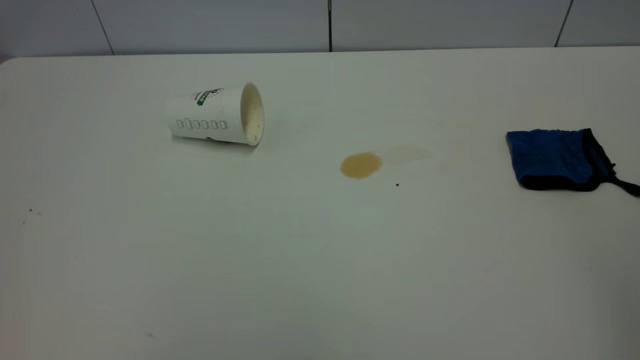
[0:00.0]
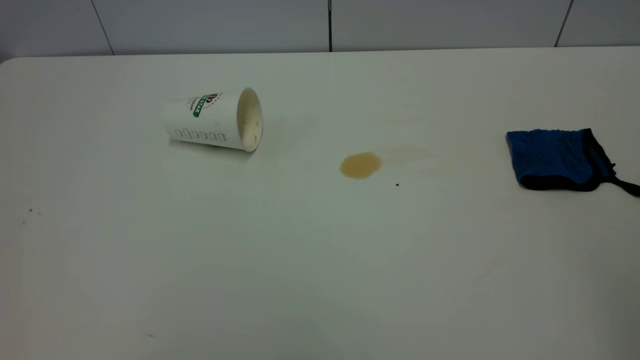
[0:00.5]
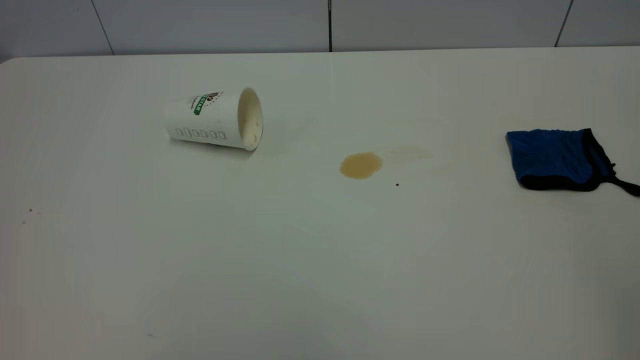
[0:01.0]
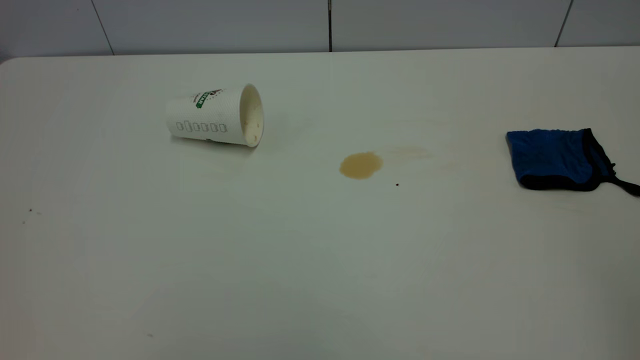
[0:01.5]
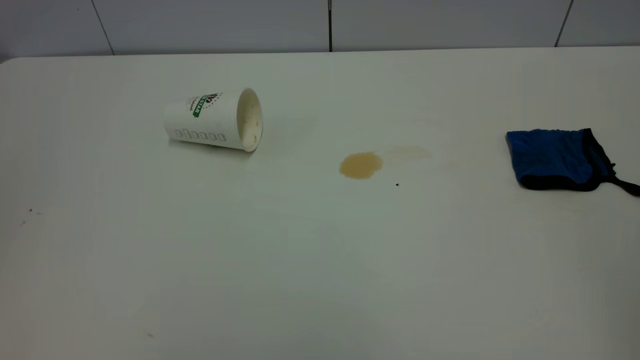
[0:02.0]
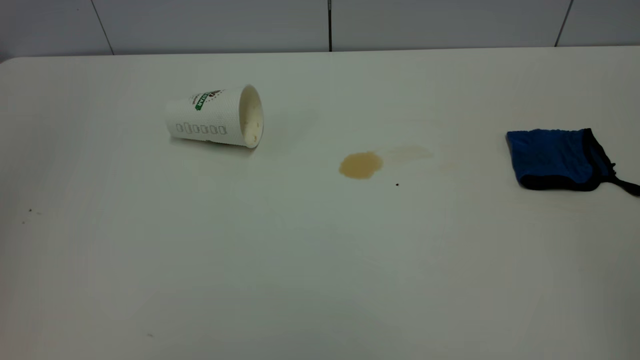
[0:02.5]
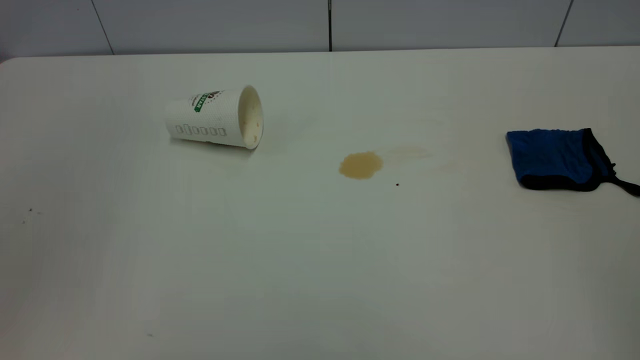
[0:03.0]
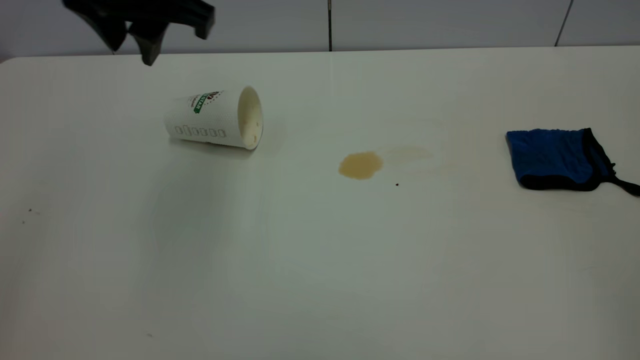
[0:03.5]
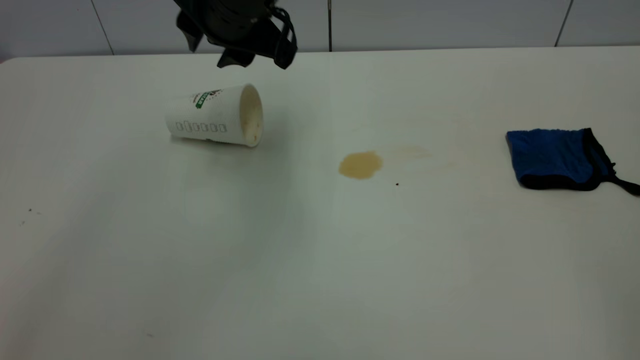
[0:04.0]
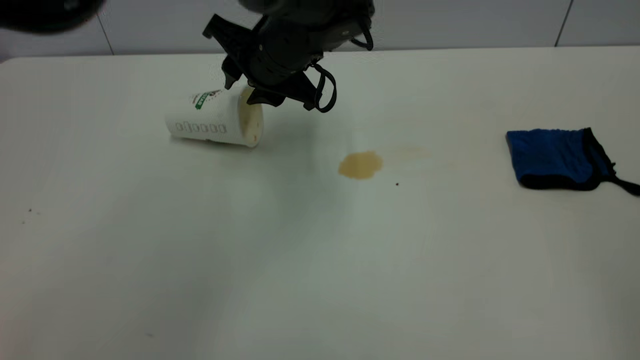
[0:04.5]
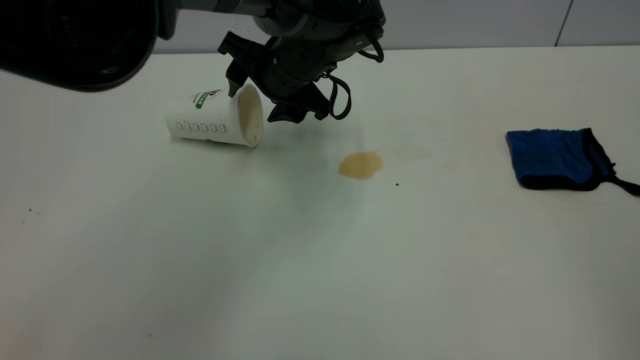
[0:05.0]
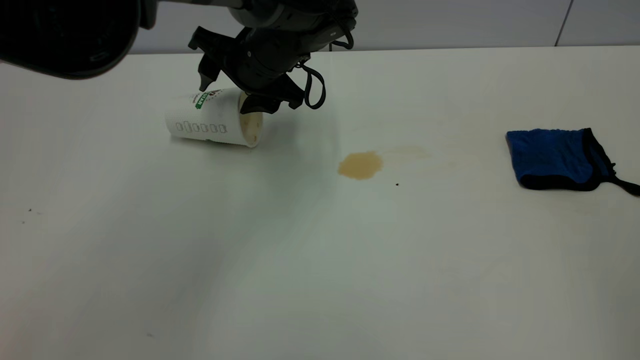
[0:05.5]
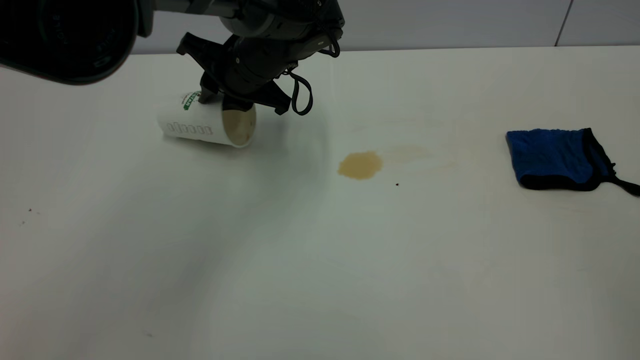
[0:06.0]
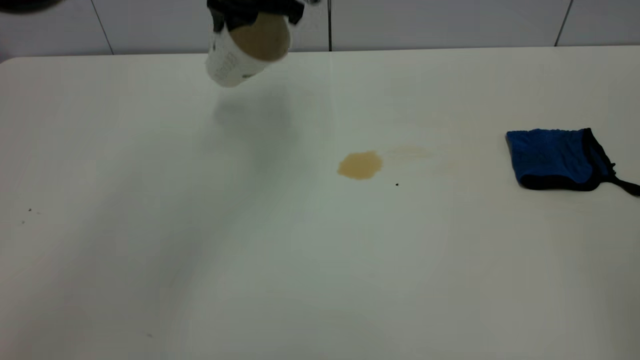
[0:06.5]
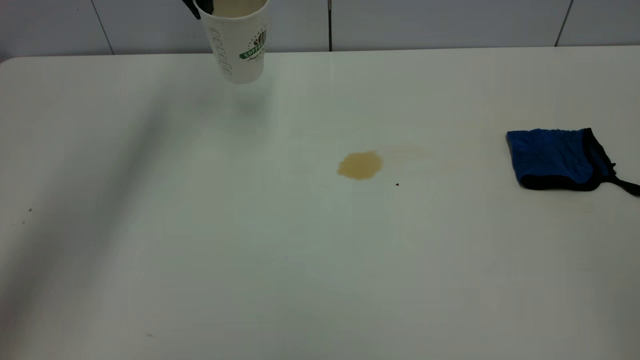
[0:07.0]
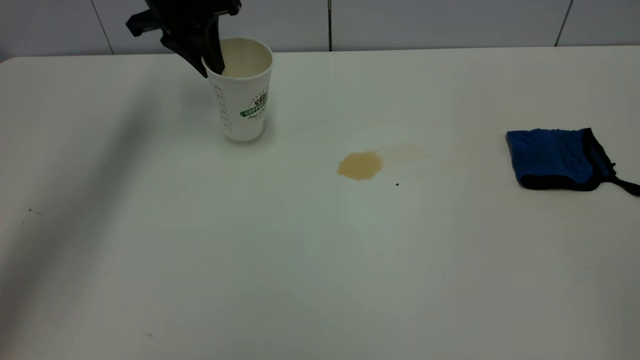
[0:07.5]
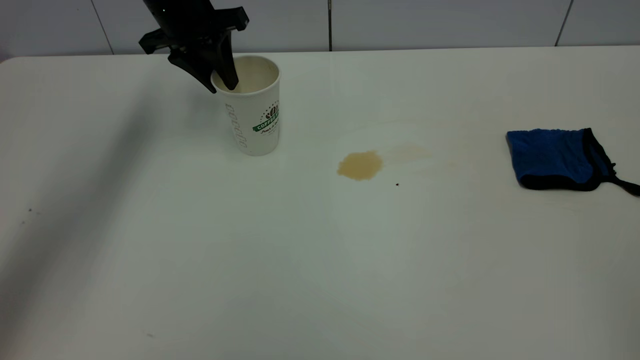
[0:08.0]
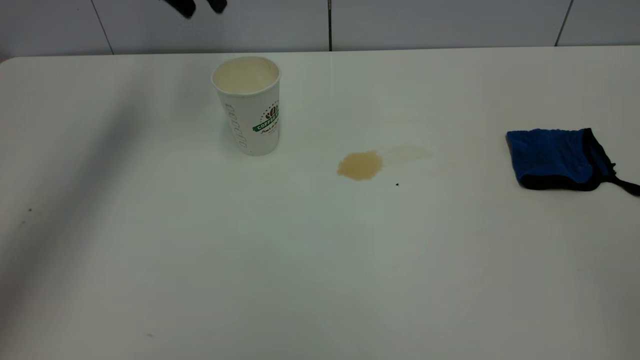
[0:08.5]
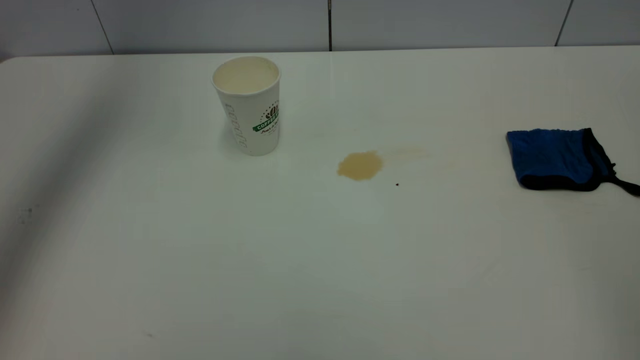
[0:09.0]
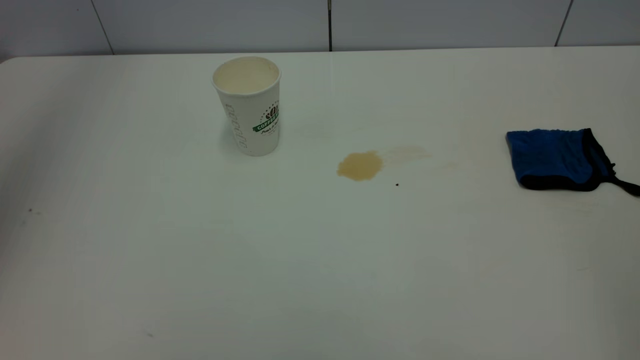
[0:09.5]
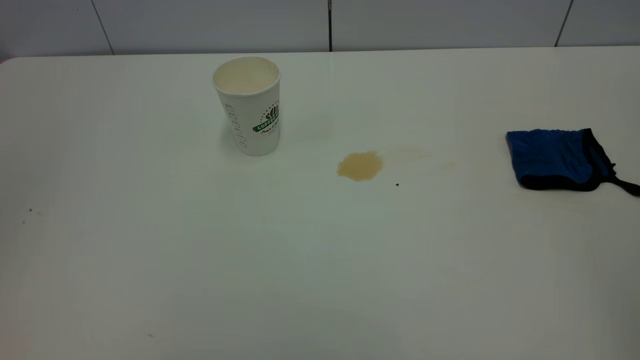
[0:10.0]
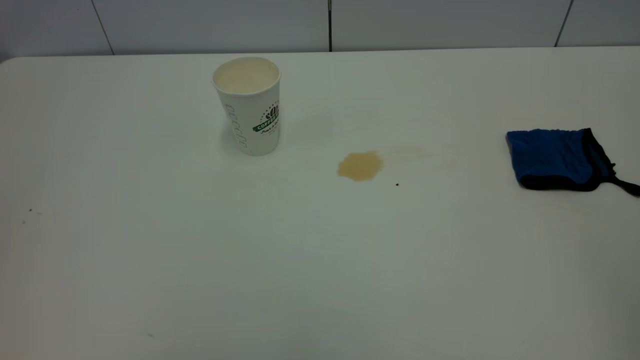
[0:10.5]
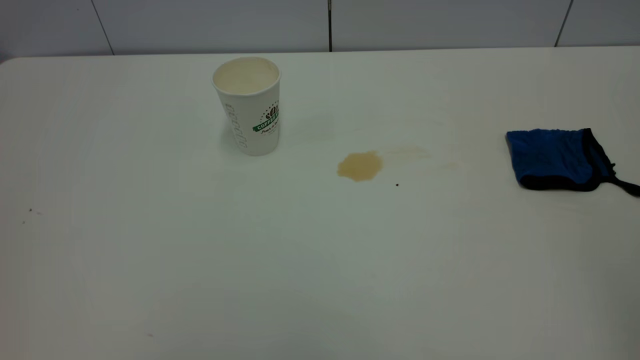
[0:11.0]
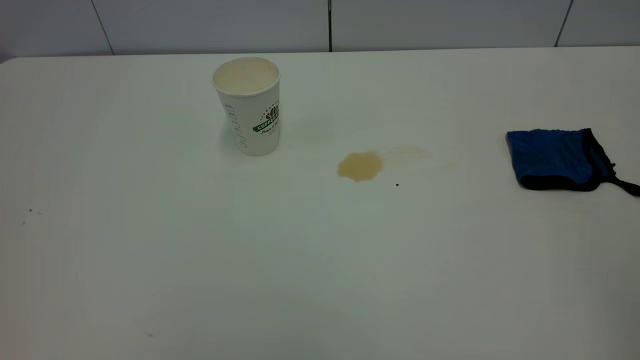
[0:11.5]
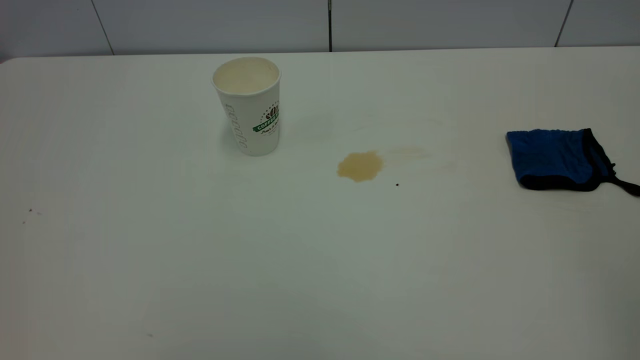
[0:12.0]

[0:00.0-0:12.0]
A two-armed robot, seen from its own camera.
Task of the whole recording: the left gripper pick up the fallen cup and place it upright, the right gripper grasp the blue rag and wipe the tea stain on the table, the right gripper put the blue rag back in its original position.
Step, 0:00.0 to 0:08.0: Stand the paper cup upright.
0:02.0 to 0:04.0: The left gripper shifts some 50 cm forward, to the right and downward.
0:04.0 to 0:06.0: The left gripper shifts roughly 10 cm downward and forward, and opens, then closes again.
0:06.0 to 0:08.0: The left gripper goes roughly 15 cm to the left, forward and upward.
0:08.0 to 0:10.0: The left gripper shifts approximately 50 cm backward and upward.

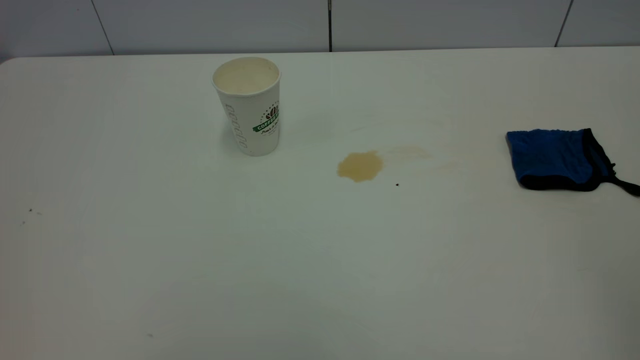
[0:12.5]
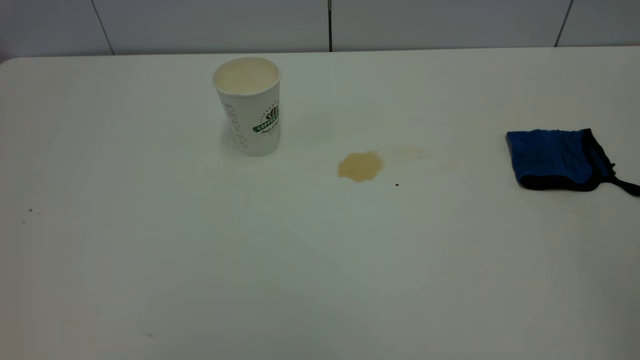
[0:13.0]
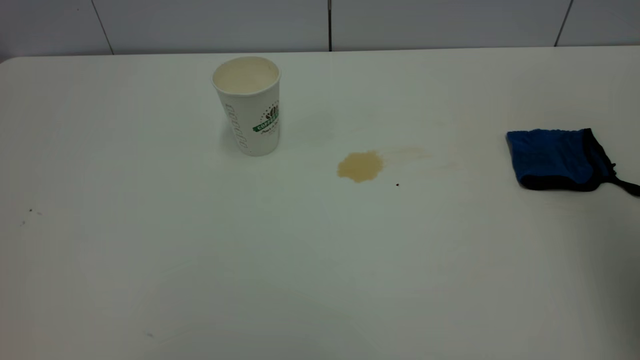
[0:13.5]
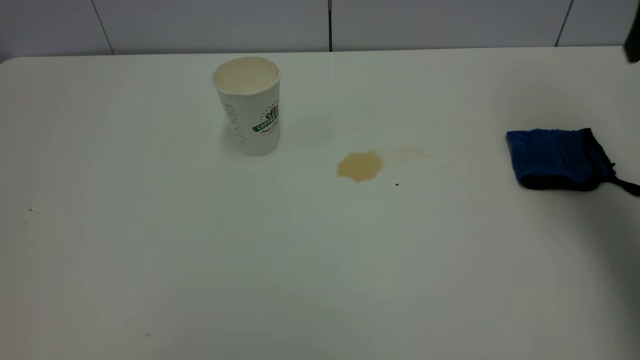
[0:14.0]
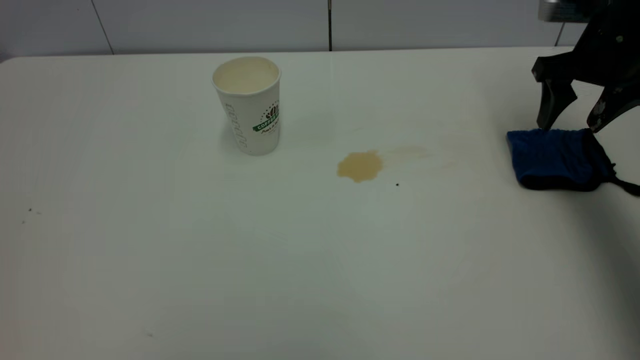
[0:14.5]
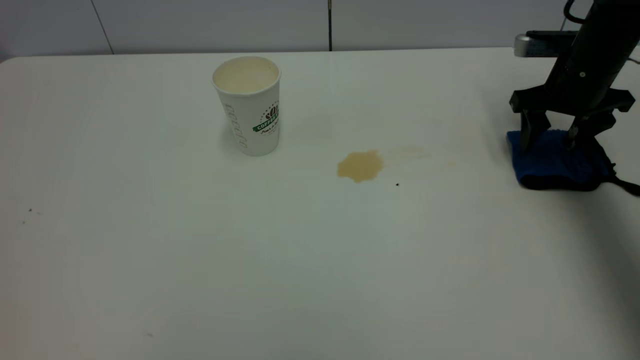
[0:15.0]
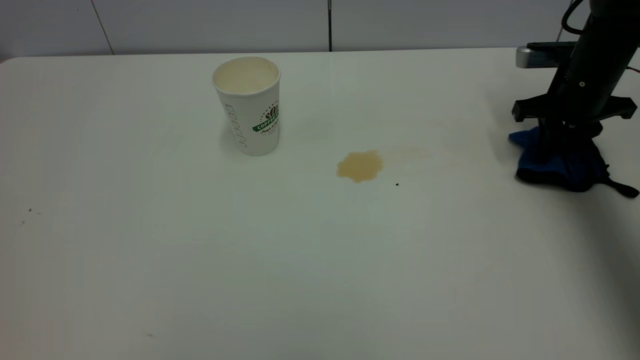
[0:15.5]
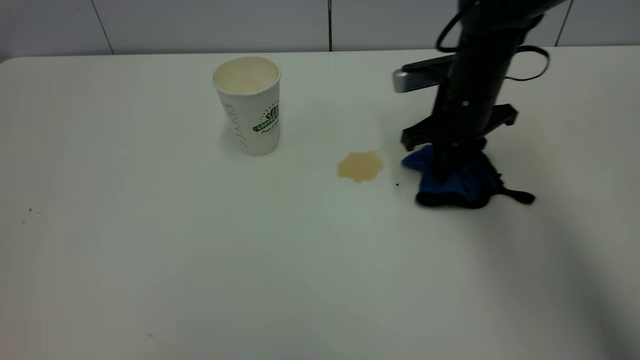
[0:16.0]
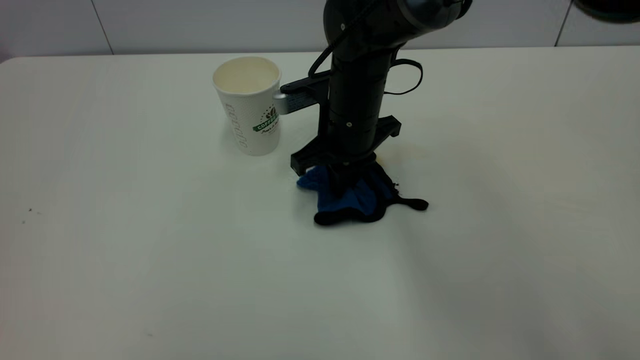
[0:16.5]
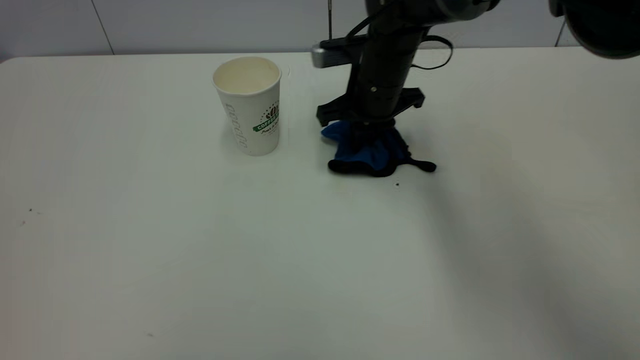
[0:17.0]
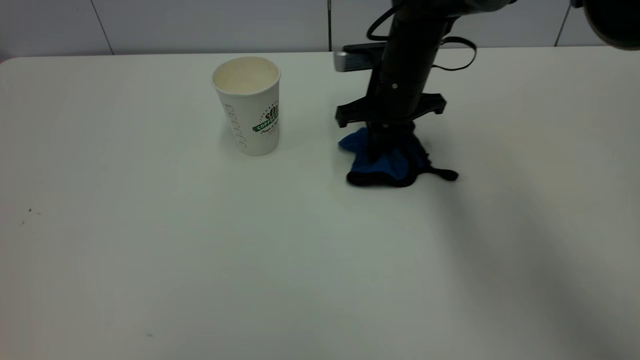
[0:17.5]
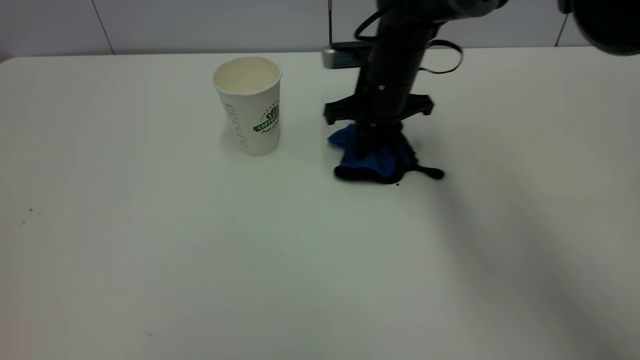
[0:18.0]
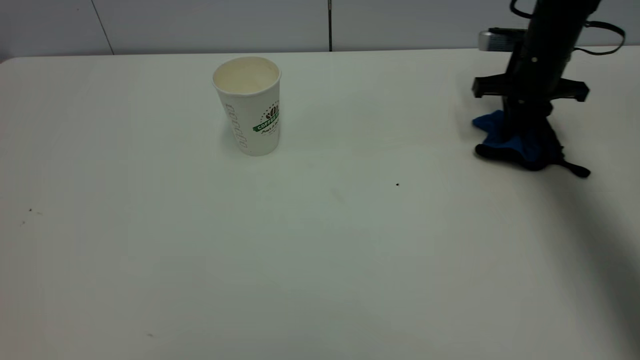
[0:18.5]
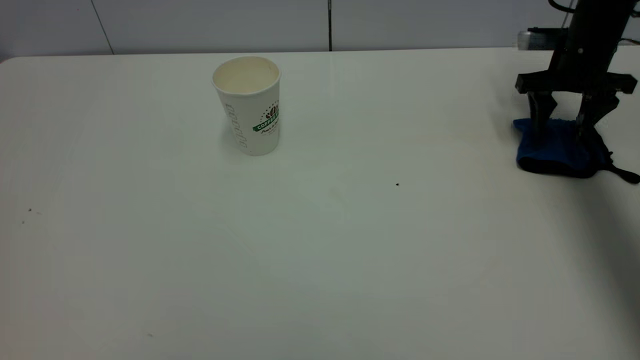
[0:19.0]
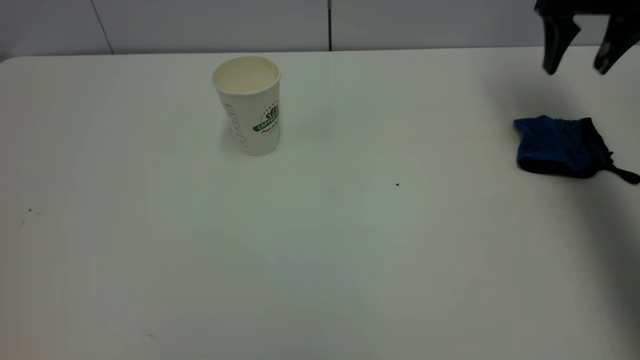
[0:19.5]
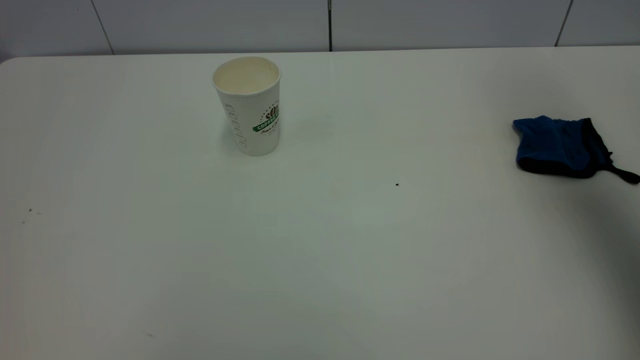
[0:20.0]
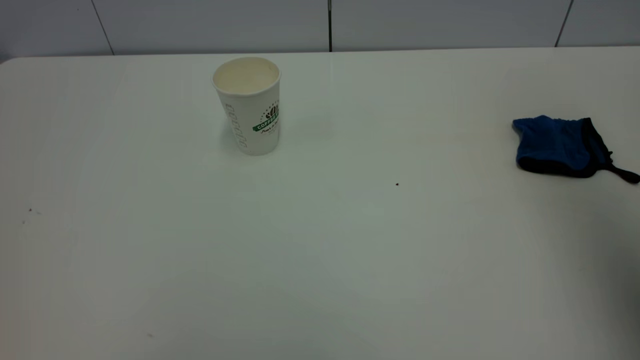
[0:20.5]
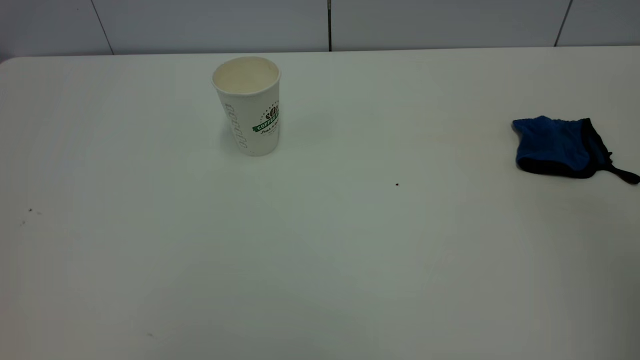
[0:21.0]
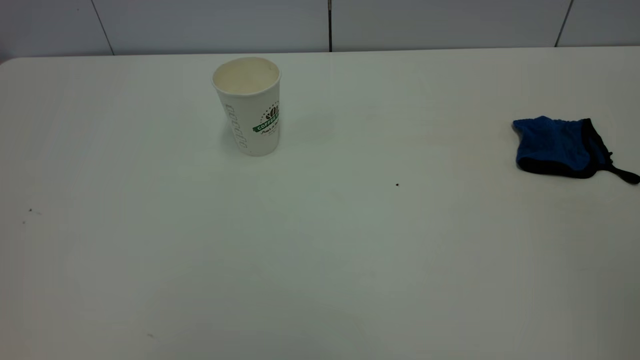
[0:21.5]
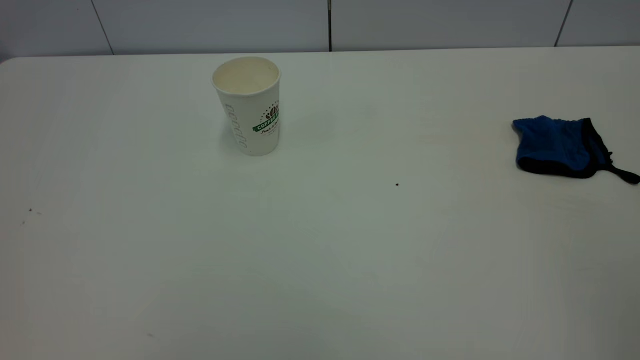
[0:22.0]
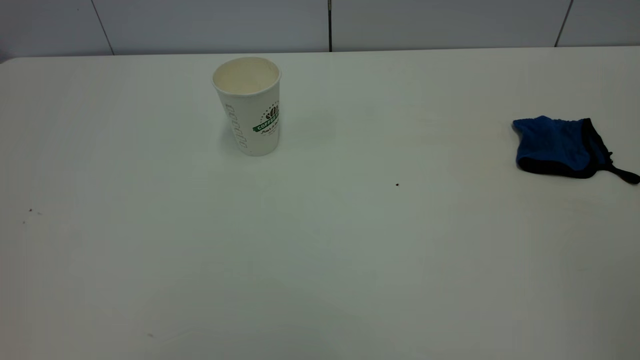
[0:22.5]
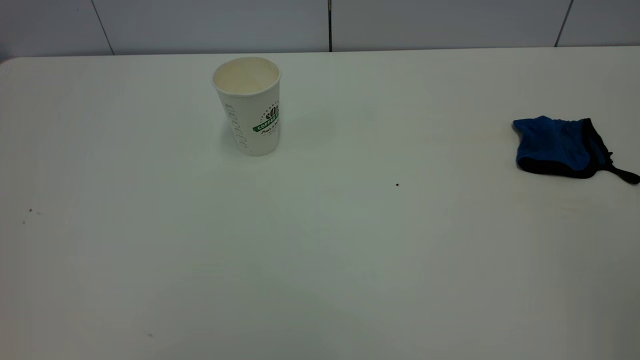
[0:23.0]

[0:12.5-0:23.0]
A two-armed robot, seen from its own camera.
Task of the whole recording: the left gripper pick up the fallen cup and place it upright, the right gripper grasp the blue rag and wipe the tea stain on the table, the right gripper put the blue rag back in its original position.
Step, 0:12.5 to 0:19.0: Wipe the stains off the table with a rag.
0:12.5 to 0:14.5: The right gripper heads forward and downward, covering roughly 50 cm.
0:14.5 to 0:16.5: The right gripper travels to the left by about 30 cm, and closes.
0:16.5 to 0:19.0: The right gripper heads to the right, covering some 30 cm, and opens its fingers.
0:19.0 to 0:21.0: The right gripper shifts about 50 cm backward and upward.
